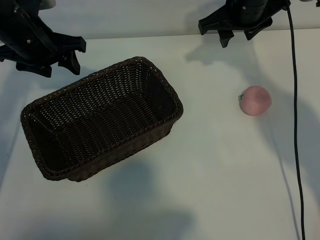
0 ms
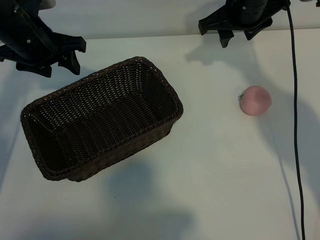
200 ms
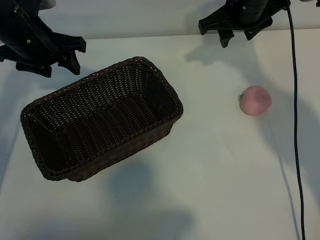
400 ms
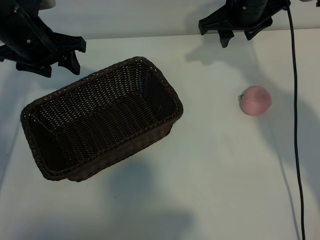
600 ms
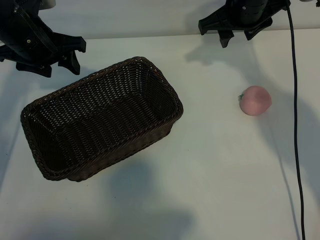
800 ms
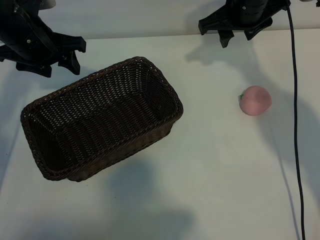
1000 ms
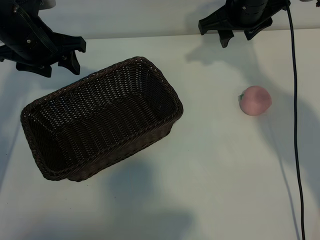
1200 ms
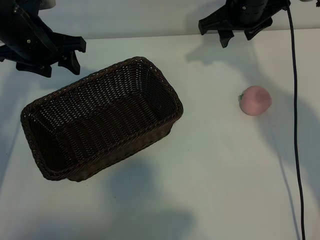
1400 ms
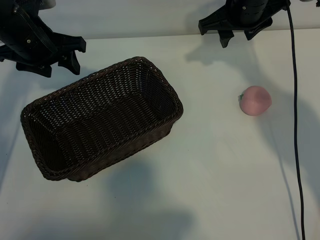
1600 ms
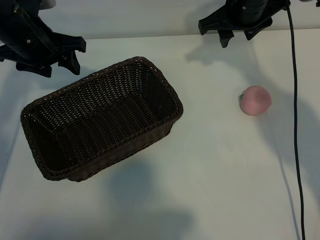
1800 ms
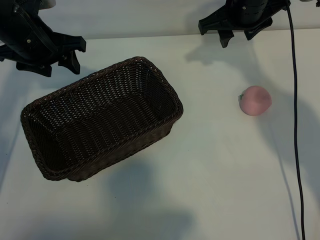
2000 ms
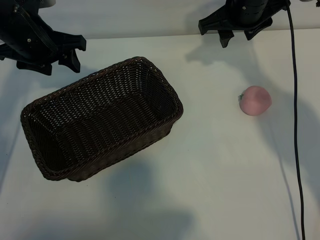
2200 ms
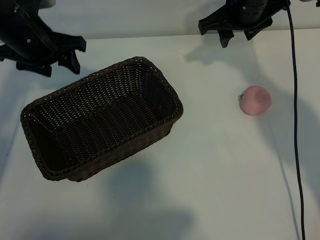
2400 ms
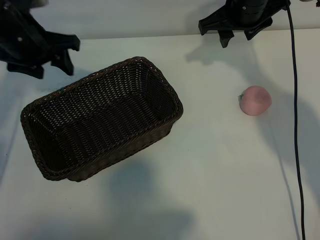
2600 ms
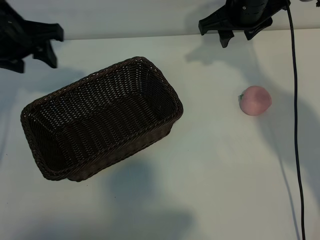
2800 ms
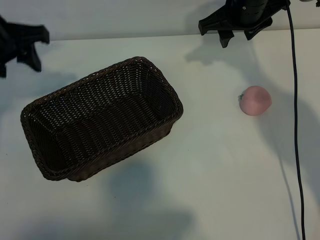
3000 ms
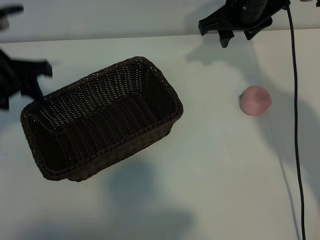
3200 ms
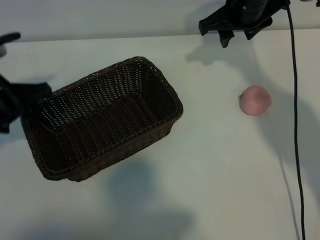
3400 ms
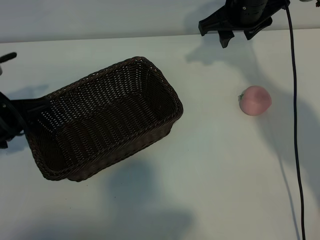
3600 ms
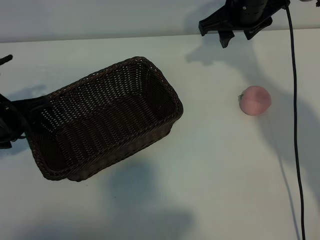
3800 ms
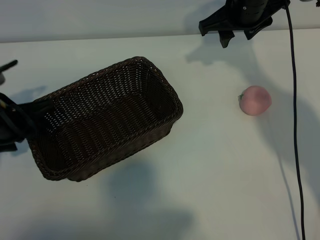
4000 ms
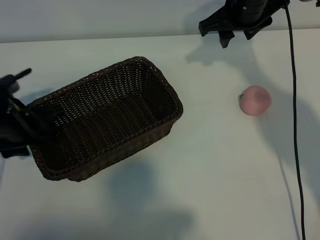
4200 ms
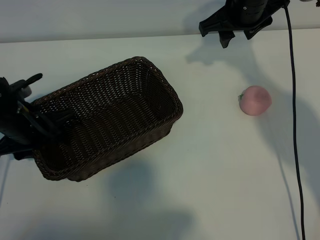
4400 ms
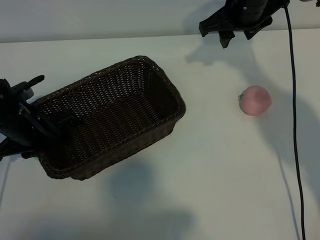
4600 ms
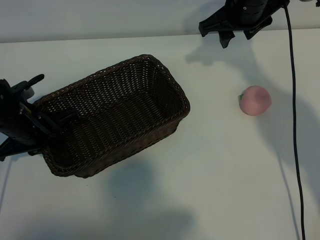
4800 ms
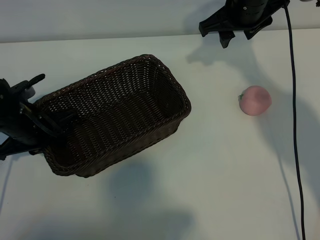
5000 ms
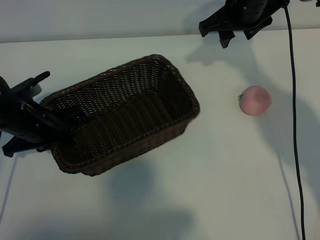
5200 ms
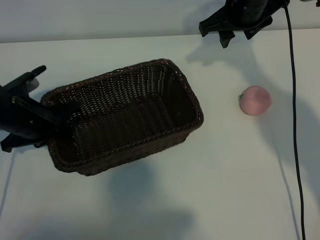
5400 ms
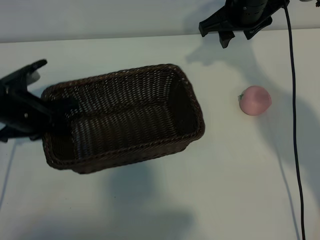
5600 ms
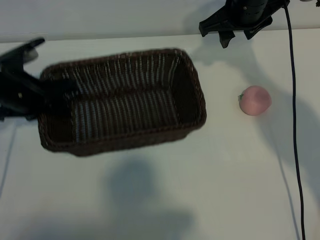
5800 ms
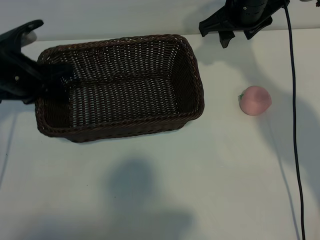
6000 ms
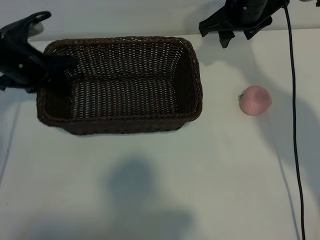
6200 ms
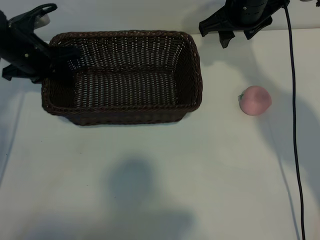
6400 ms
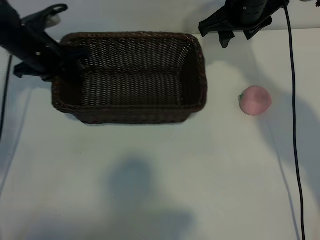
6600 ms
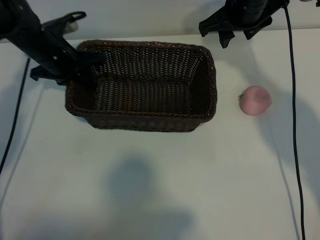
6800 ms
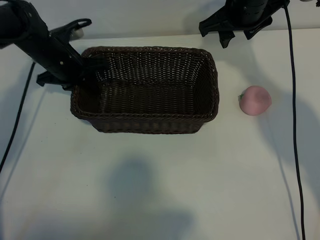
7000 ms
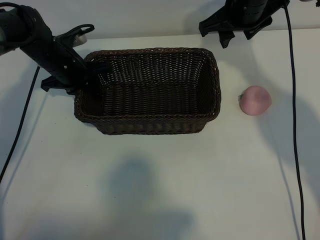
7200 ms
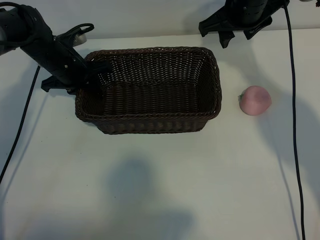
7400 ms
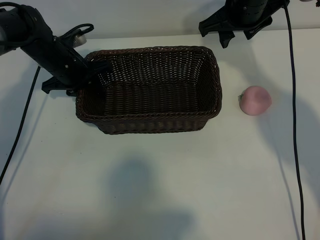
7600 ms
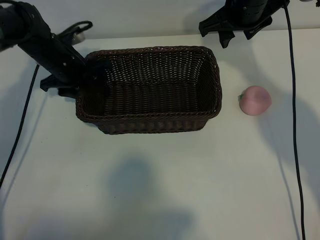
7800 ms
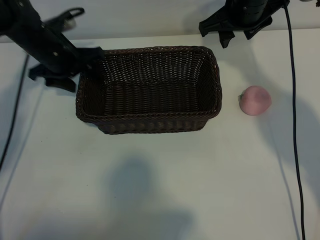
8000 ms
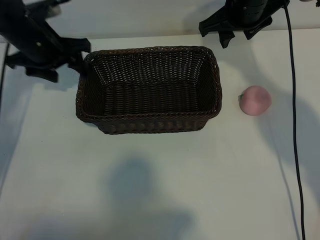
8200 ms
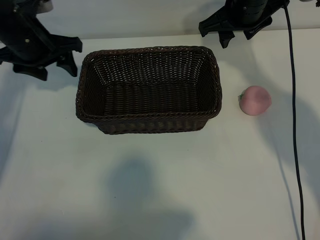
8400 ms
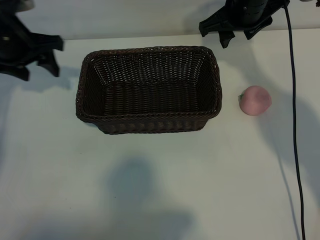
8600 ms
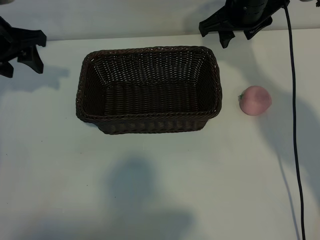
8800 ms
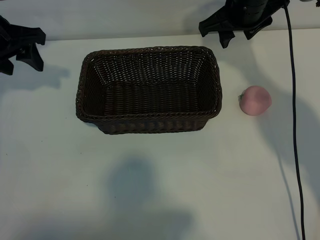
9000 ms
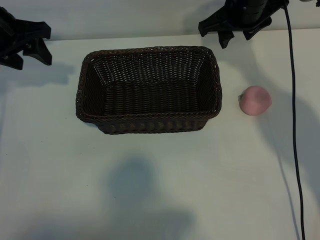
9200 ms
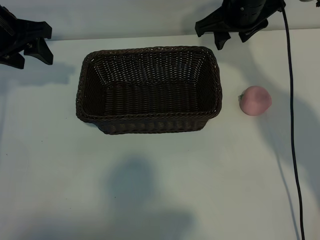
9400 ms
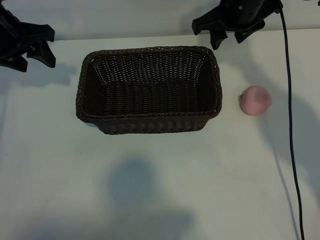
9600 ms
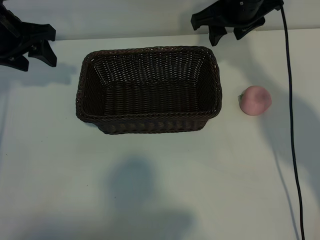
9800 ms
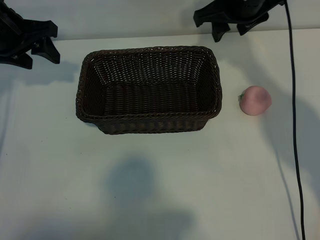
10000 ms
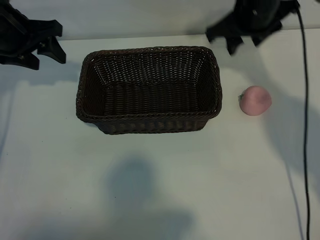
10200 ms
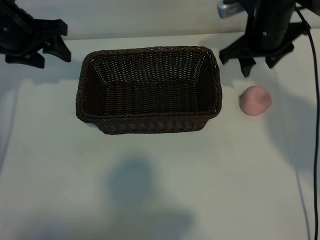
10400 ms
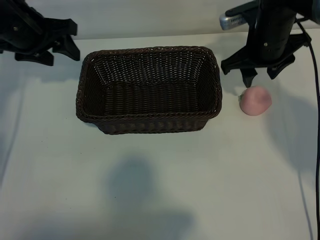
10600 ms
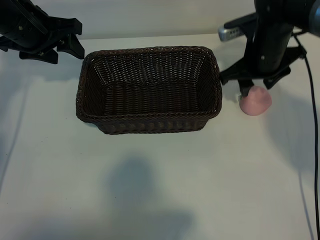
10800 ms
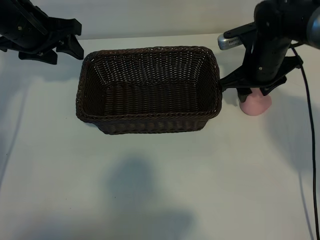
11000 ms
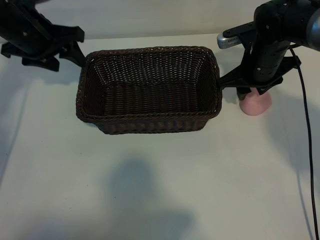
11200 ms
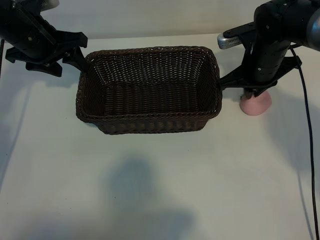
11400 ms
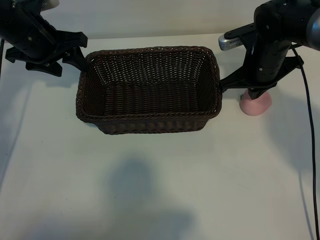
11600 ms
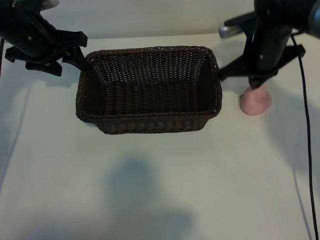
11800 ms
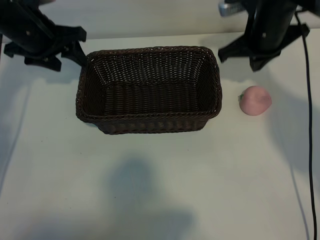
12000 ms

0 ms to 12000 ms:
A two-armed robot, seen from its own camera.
Task of the whole recording: pick up the peach and put it into the basket.
Step, 2000 ms to 4800 ms: Grasp the basket with left gripper.
Step, 5000 ms to 7800 ms: Place the basket in the center of view with left gripper.

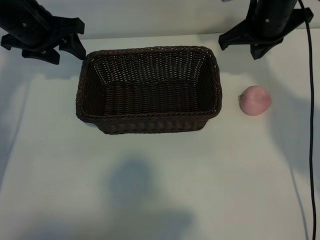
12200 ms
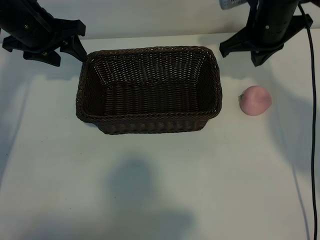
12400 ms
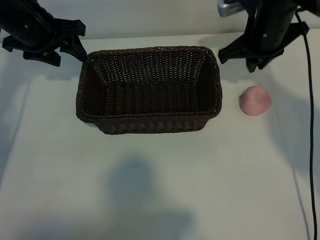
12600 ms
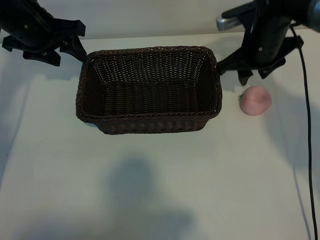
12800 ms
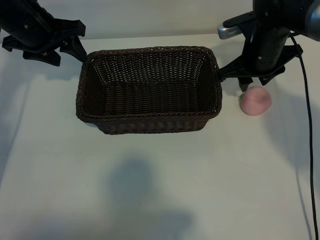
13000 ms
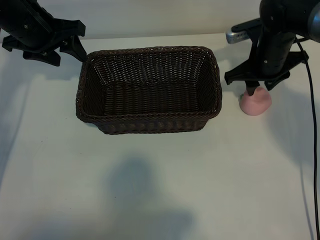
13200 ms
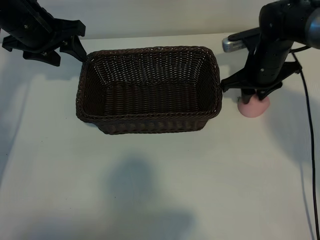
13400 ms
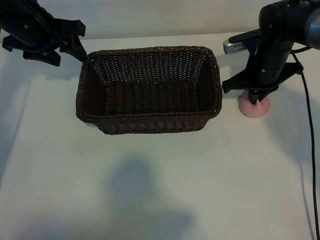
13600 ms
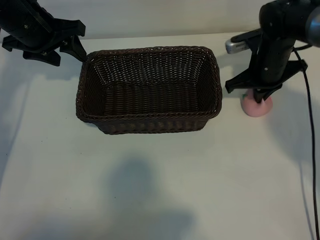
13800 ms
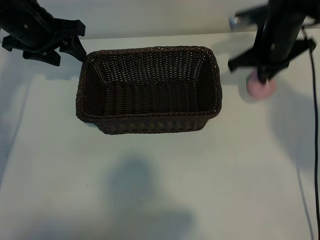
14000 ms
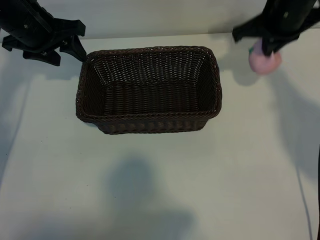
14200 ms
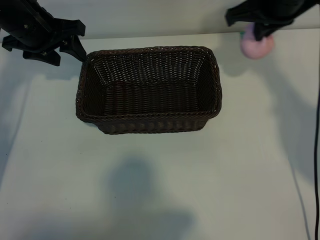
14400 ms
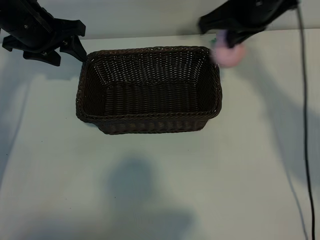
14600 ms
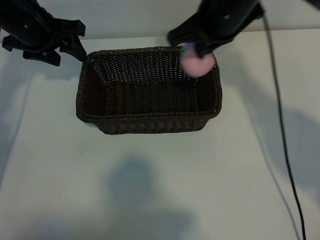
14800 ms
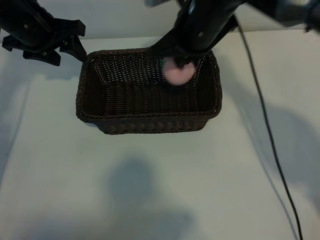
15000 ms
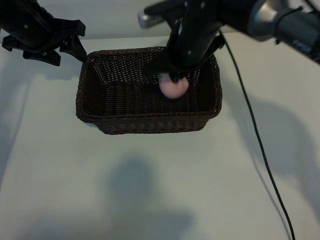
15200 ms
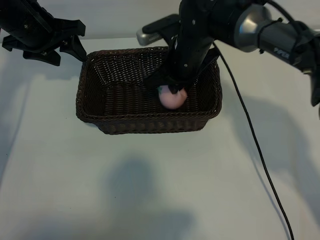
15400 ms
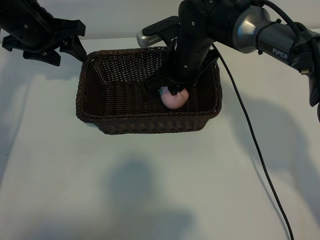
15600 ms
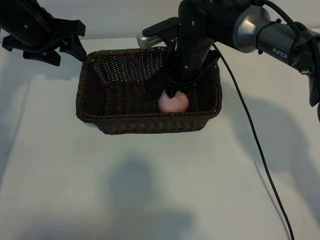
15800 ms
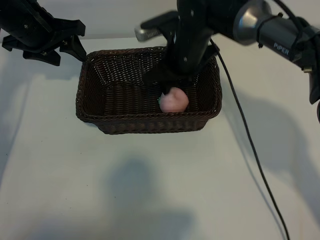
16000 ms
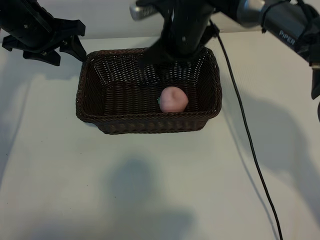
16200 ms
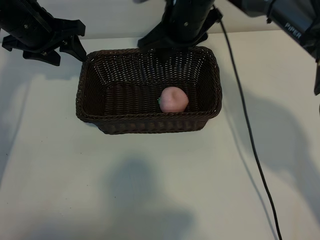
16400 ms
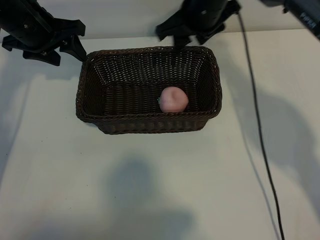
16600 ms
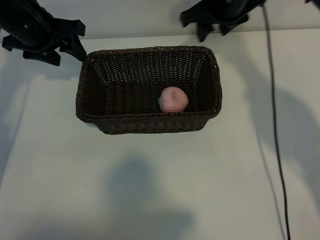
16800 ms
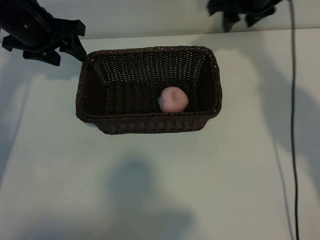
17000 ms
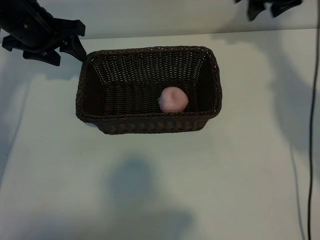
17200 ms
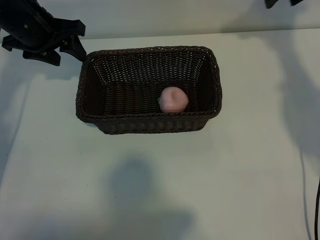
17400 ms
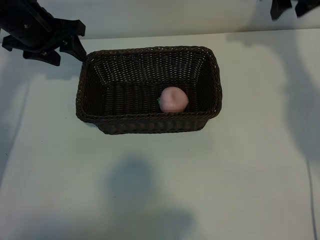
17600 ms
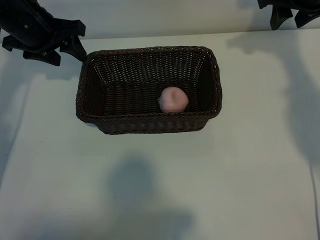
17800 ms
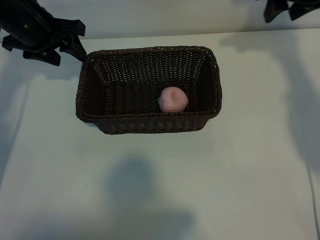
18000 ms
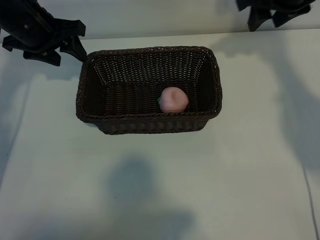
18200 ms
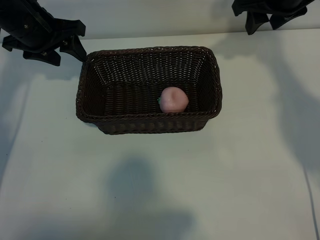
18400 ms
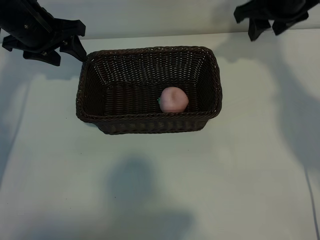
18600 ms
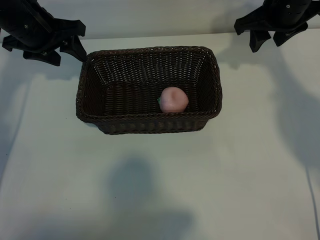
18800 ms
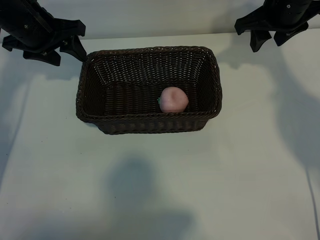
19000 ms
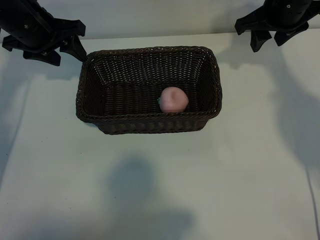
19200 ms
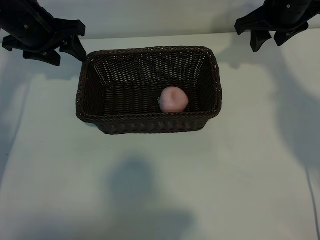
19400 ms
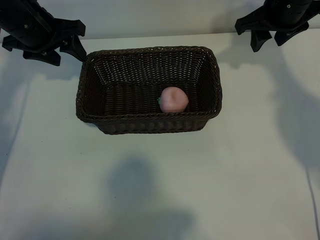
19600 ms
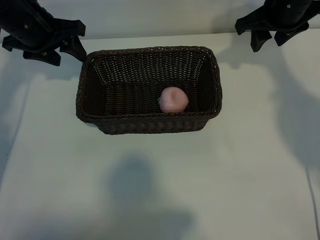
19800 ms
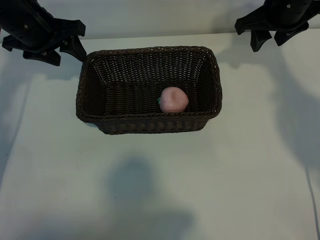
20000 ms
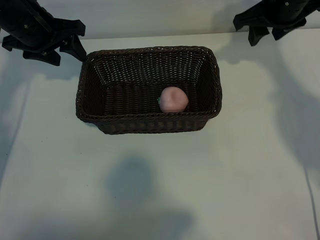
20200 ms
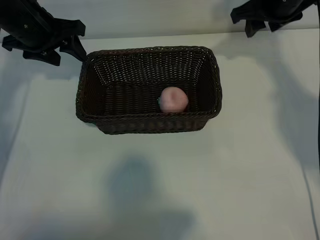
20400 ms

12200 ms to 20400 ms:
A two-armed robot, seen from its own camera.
Task of the whole recording: pick up the peach and put it into the basket.
Step, 13800 ms to 15800 ms: Place the peach in the basket with right gripper.

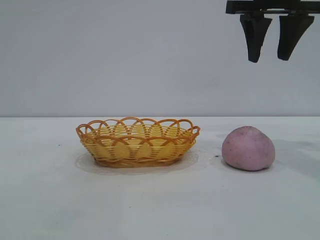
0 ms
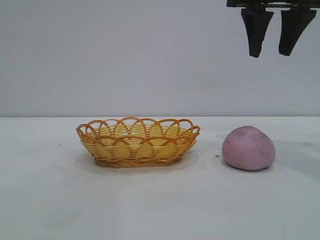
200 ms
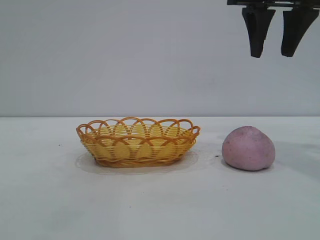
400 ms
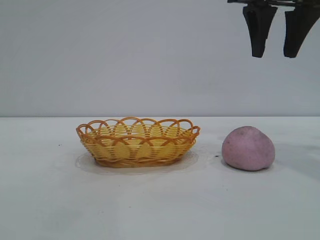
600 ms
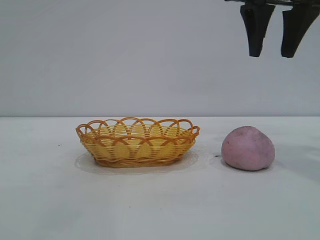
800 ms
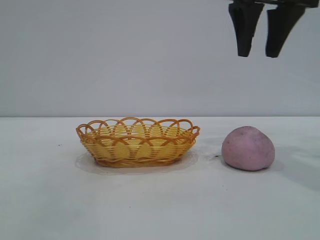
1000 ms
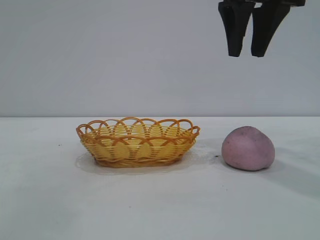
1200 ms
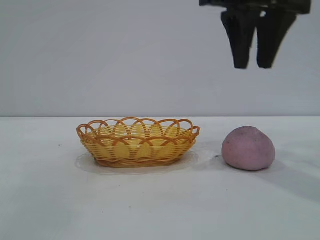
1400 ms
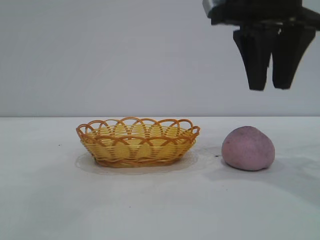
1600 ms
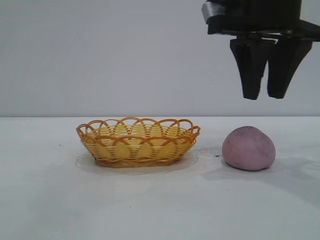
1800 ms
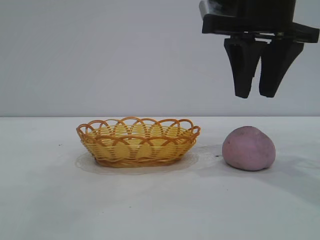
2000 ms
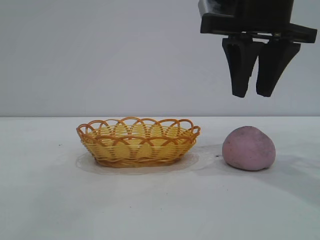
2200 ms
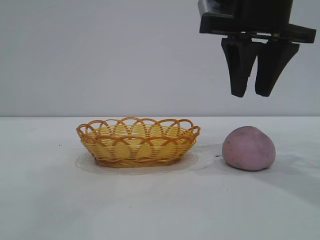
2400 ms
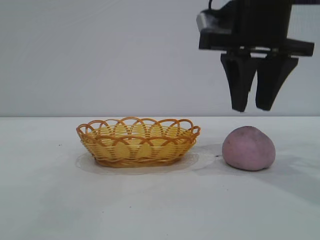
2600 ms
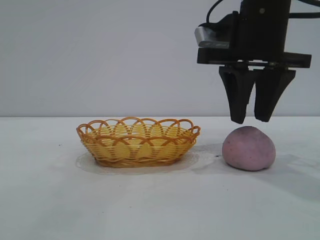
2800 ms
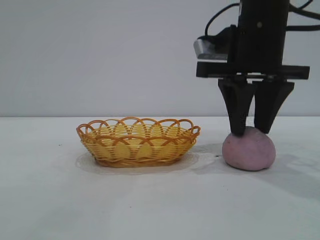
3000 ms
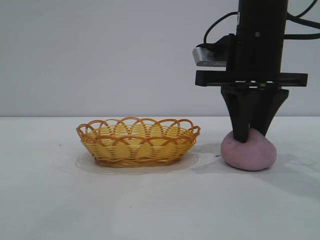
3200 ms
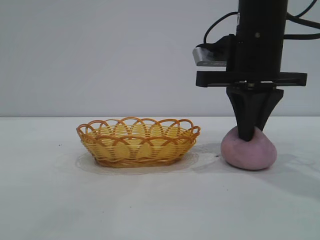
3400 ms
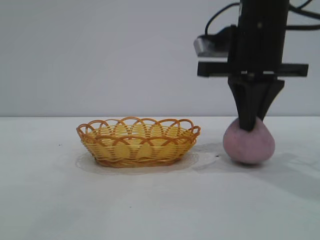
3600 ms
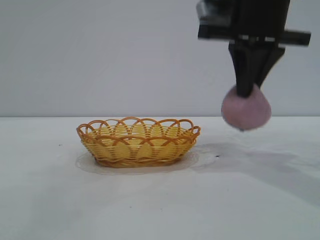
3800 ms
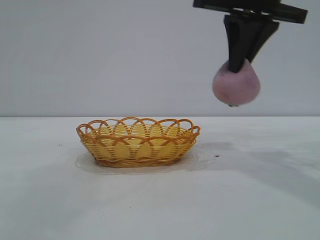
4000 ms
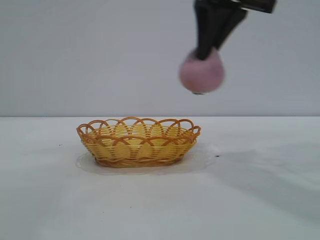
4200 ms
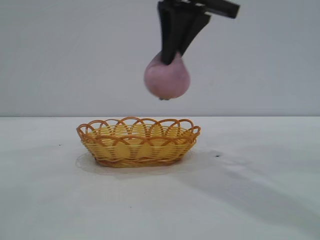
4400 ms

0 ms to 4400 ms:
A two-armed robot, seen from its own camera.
Task of the whole recording: pick up the peach and put it into the basket.
Step, 0 ms to 3800 ms: Pick up the peach.
